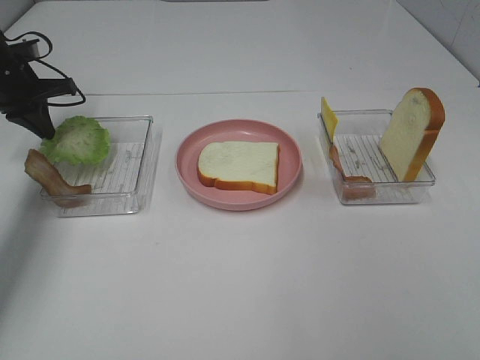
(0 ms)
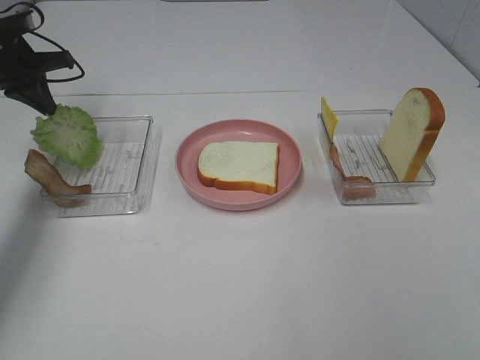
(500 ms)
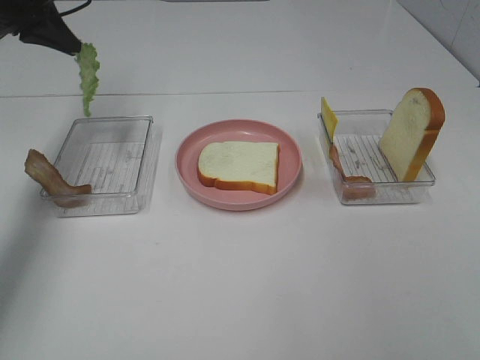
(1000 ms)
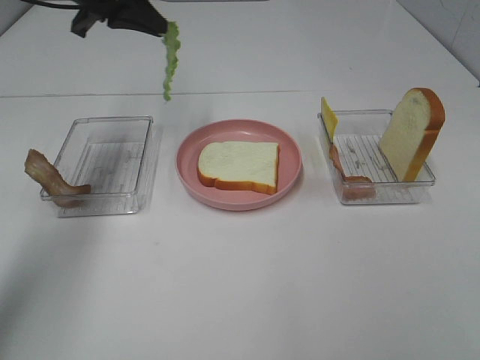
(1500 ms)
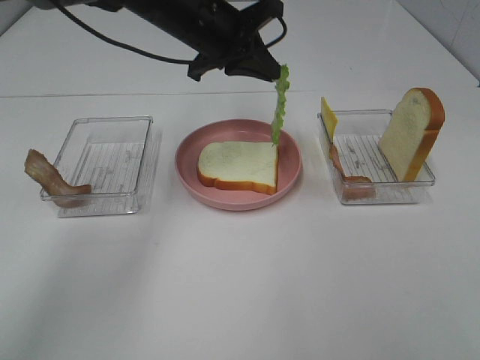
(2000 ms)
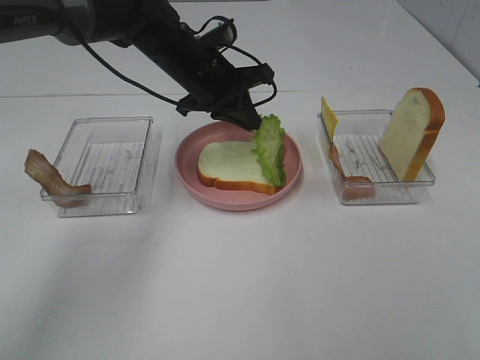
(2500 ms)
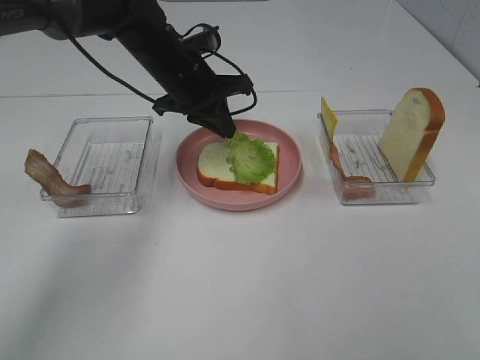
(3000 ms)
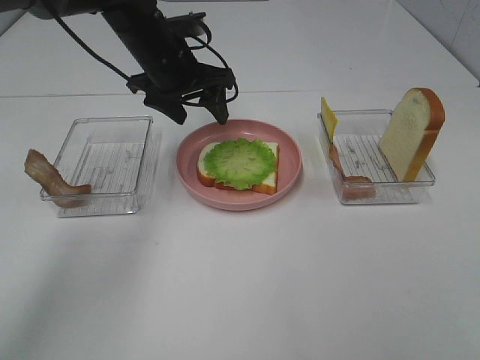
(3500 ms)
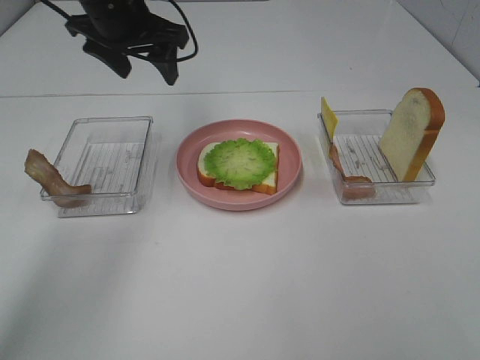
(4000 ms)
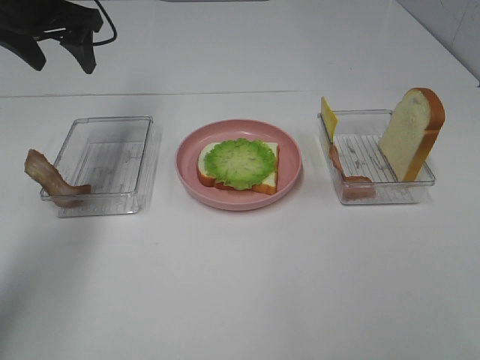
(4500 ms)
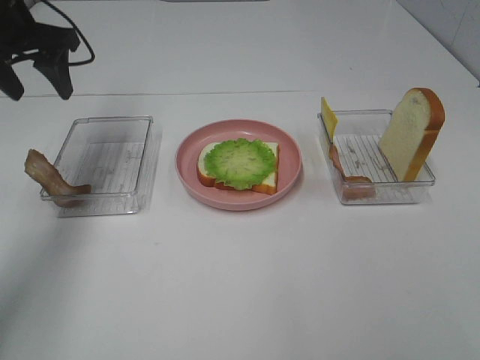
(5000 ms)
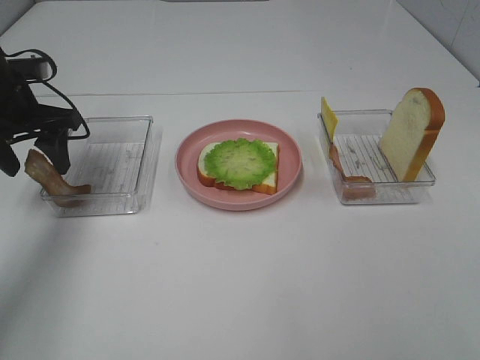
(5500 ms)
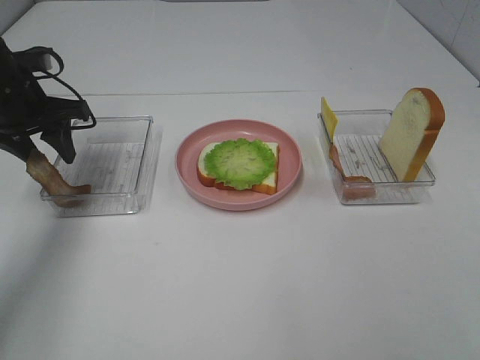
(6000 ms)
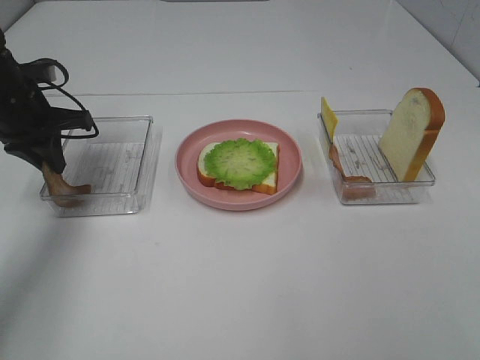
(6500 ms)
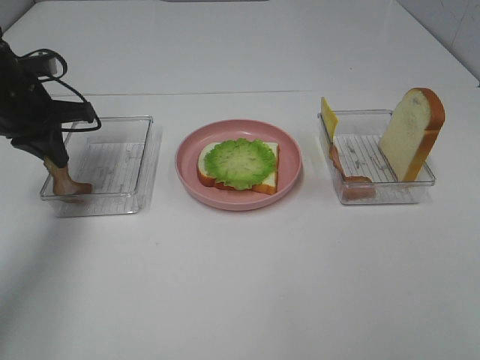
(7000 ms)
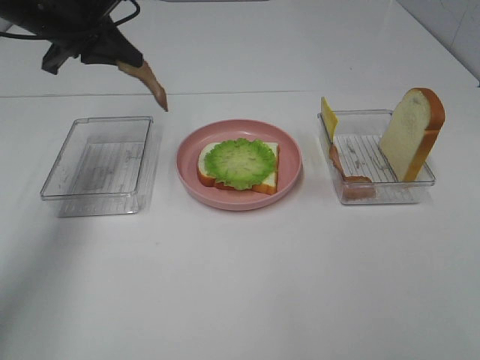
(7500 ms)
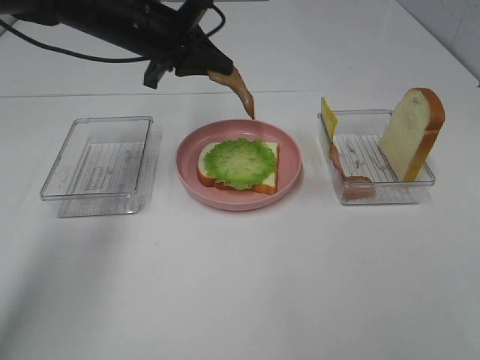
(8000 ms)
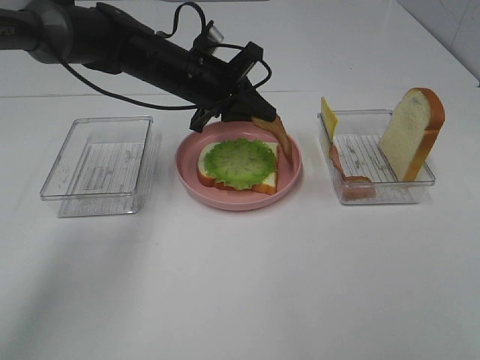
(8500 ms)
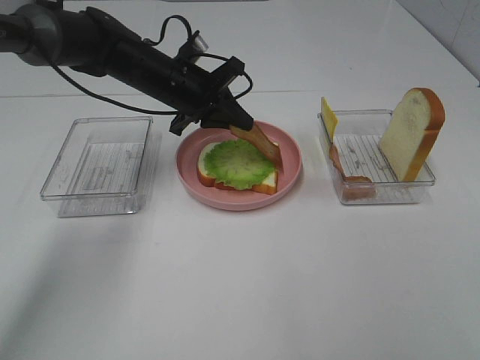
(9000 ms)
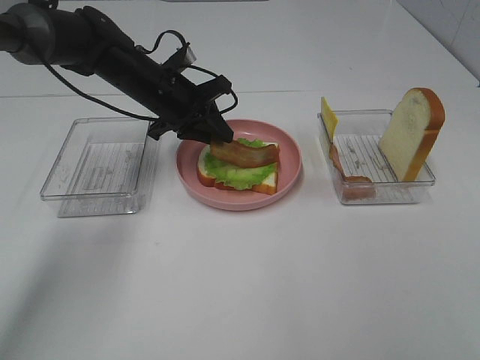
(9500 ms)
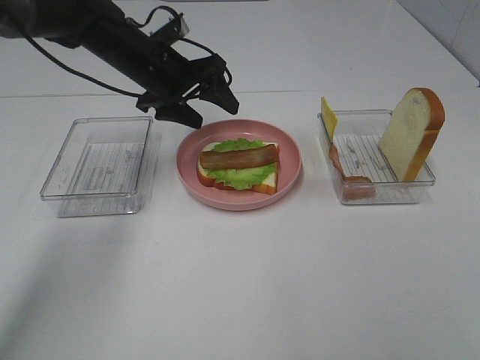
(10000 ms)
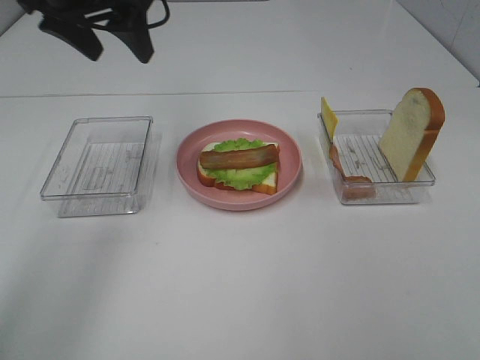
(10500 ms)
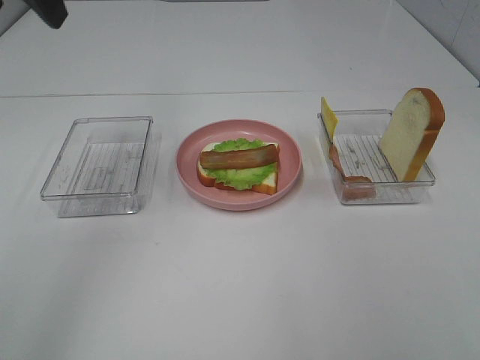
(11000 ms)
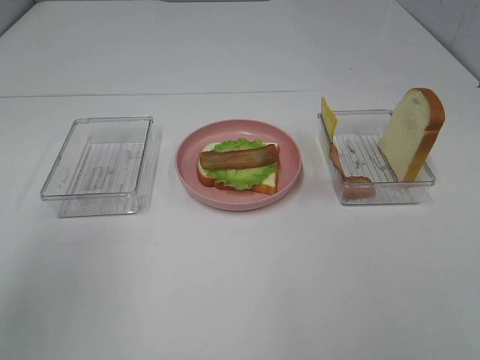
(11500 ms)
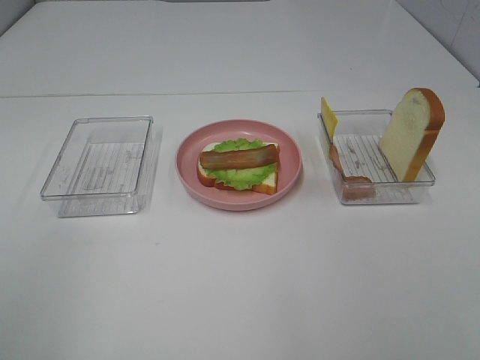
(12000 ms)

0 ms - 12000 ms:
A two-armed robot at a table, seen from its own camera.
Task of the whole recording: Make sandwiches.
Step, 500 ms - 3000 ms: Left hand:place the lettuce slice on the bread slice.
Step, 3500 ms - 6500 ms: Left hand:grab the bacon.
Step, 7000 ms - 10000 ms: Left hand:place bacon on lettuce slice.
0 ms - 2000 ms: The left gripper shifts about 30 cm to the right.
2000 ms - 4000 ms: The left gripper travels to the left by about 10 cm, and opens.
4000 ms - 6000 ms: The left gripper is displaced to the left and downward by approximately 15 cm.
6000 ms - 8000 ms: The left gripper travels to the right by about 15 cm, and closes its fingers.
8000 ms - 10000 ms: The left gripper opens its fingers.
10000 ms - 12000 ms: The left gripper moves backward and to the left, roughly 40 cm.

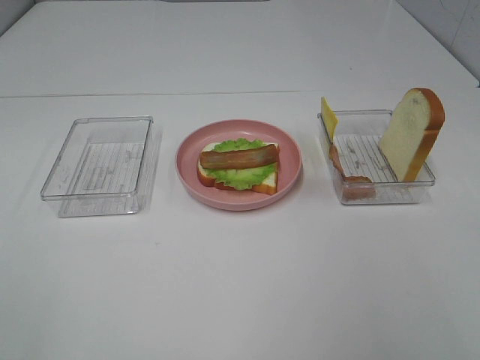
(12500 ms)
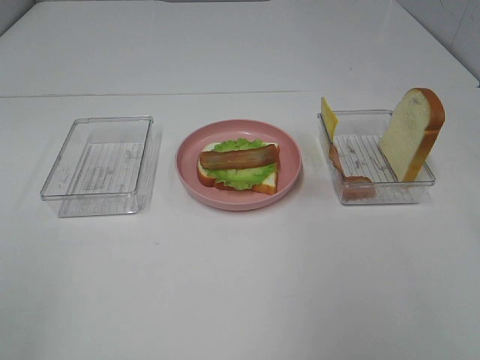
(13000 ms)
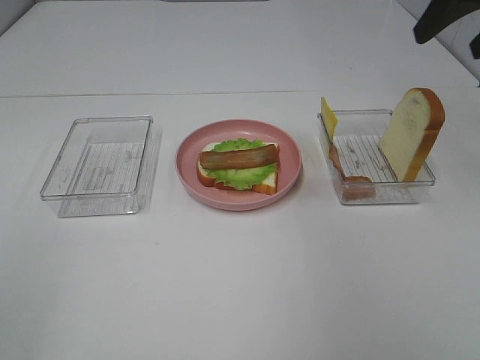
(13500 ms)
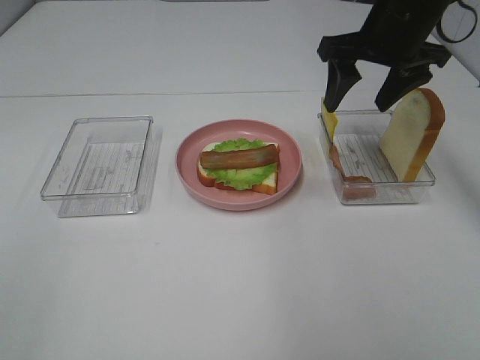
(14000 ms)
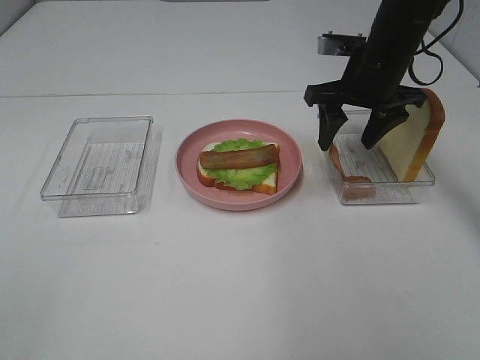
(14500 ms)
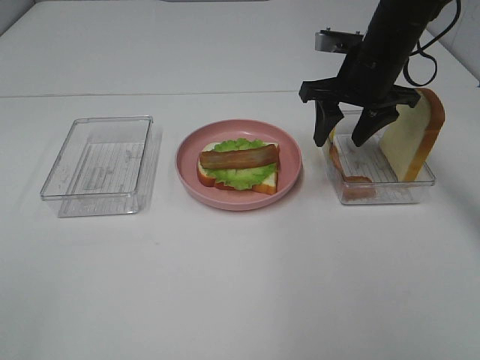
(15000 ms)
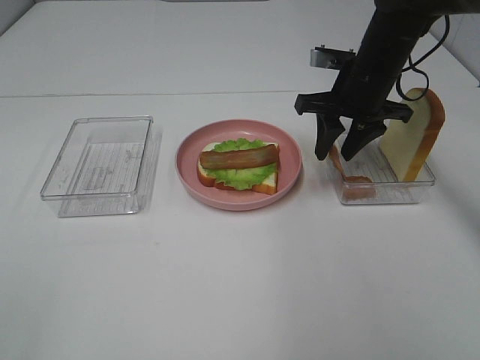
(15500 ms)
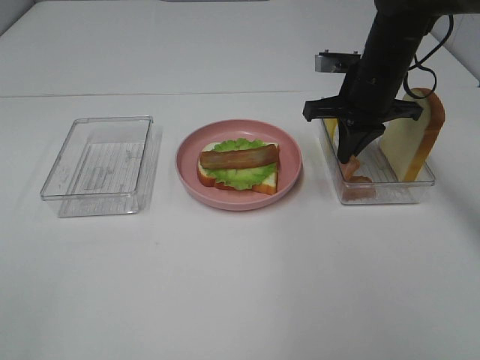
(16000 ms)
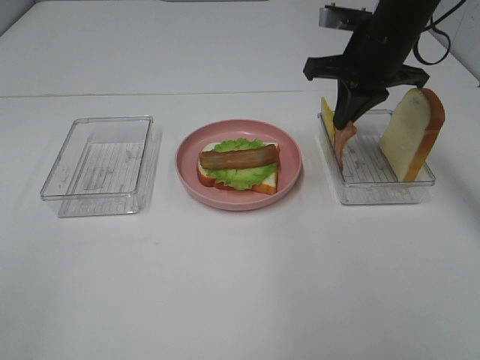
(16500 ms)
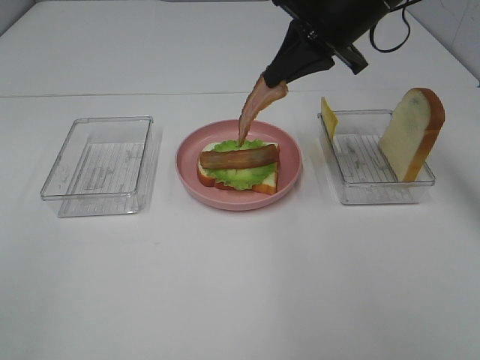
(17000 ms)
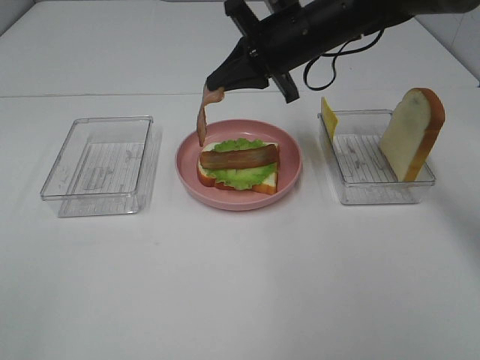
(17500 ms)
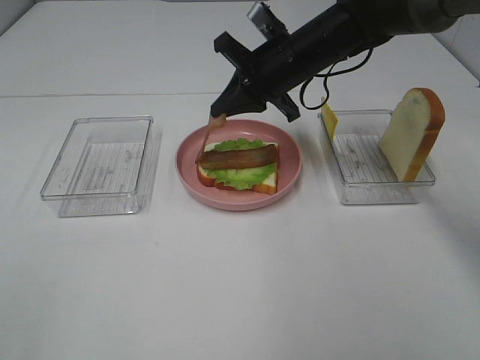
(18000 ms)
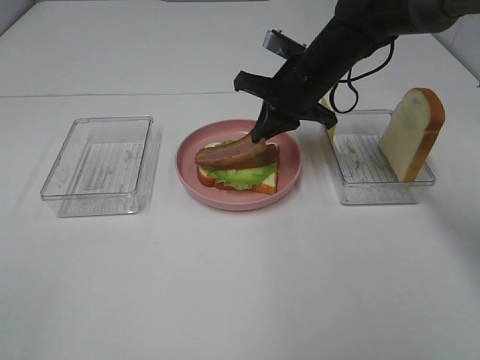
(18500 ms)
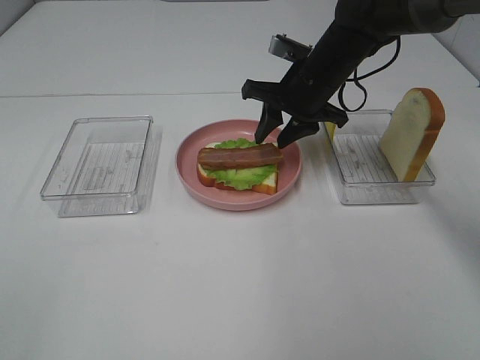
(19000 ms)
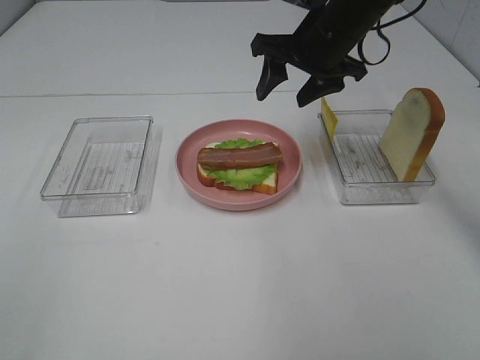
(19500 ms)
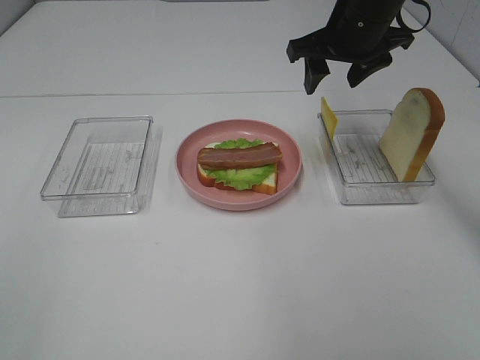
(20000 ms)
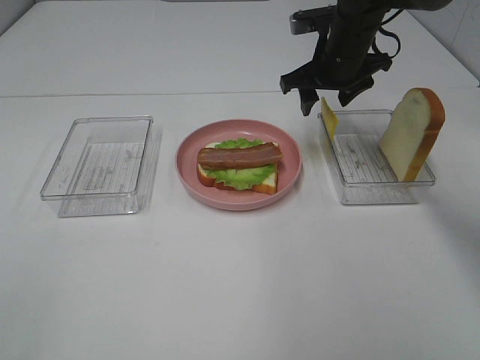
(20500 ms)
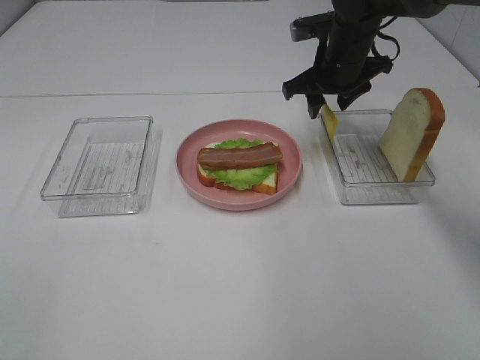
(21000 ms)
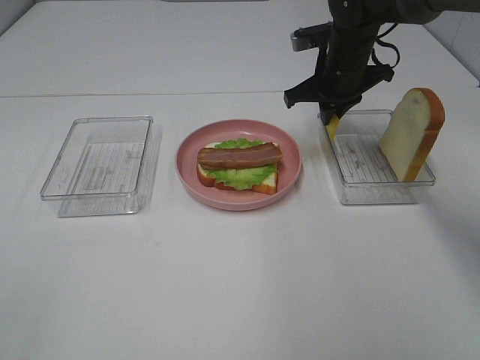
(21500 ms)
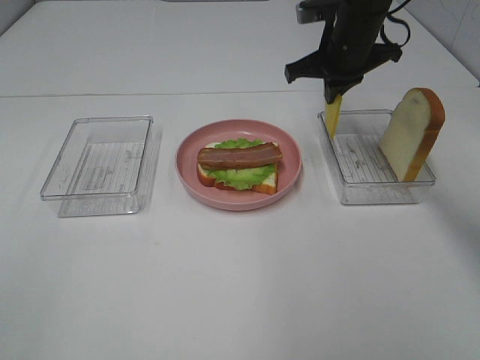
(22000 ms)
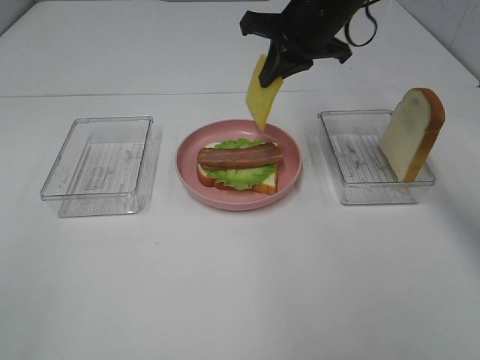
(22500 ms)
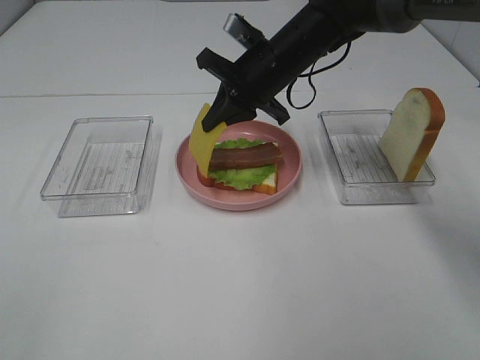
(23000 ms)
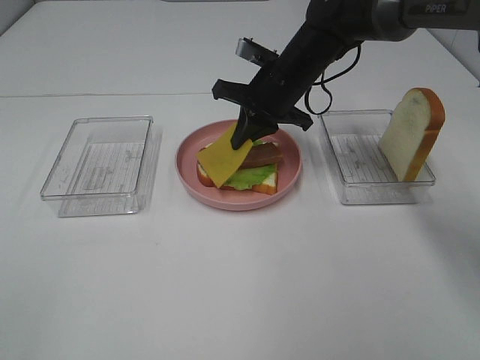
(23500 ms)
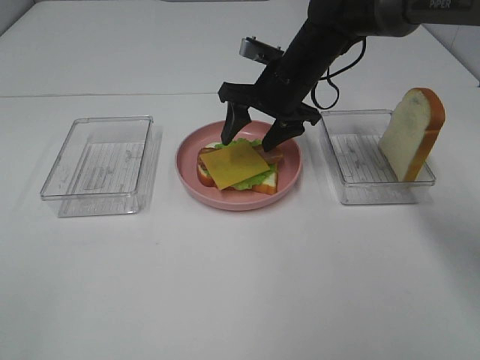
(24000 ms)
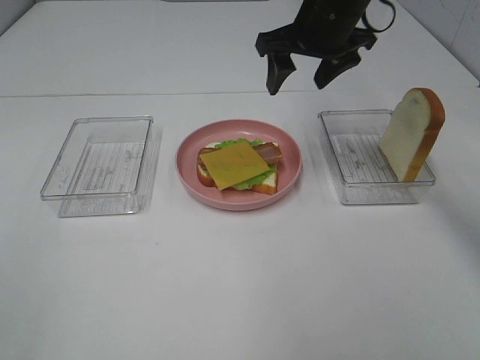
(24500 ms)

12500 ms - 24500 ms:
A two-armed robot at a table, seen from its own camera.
Task of the whole recording: Make sandwiches.
Step, 12500 ms - 16000 ms: Right hand:grab the bacon.
Step, 16500 ms - 19500 ms: Right hand:place bacon on bacon.
Step, 20000 ms - 21500 ms: Right hand:grab the cheese slice.
Step, 22000 ms - 24000 ms: Right hand:place the cheese slice on top of the bacon.
12500 ms - 14500 ms: The right gripper heads forward, covering some 35 cm.
14500 ms - 16500 ms: The right gripper closes.
16500 ms - 18500 ms: The right gripper heads downward and to the left, covering approximately 10 cm.
18500 ms - 20500 ms: The right gripper moves about 10 cm upward and comes back, and opens its fingers.
20500 ms - 22500 ms: The right gripper travels upward by some 5 cm, and closes.
22500 ms - 24500 ms: The right gripper reaches some 10 cm downward, then returns, and opens its fingers.

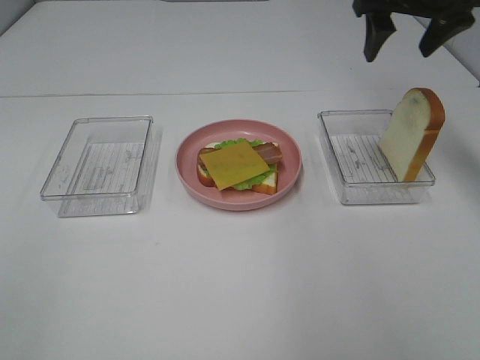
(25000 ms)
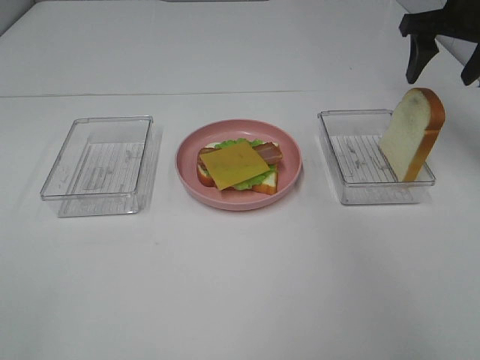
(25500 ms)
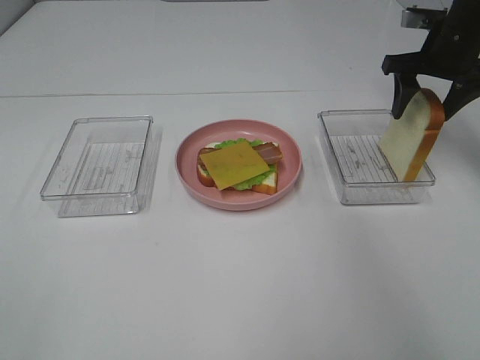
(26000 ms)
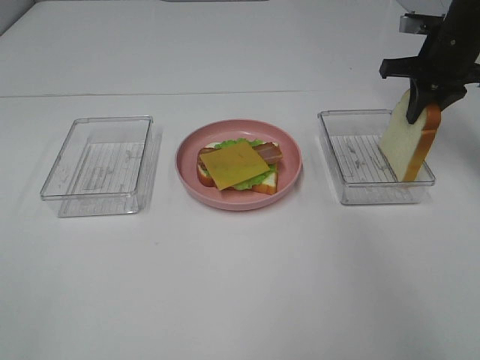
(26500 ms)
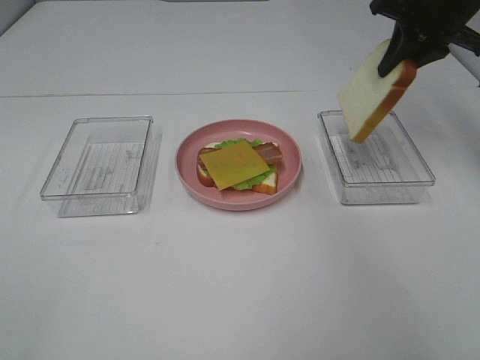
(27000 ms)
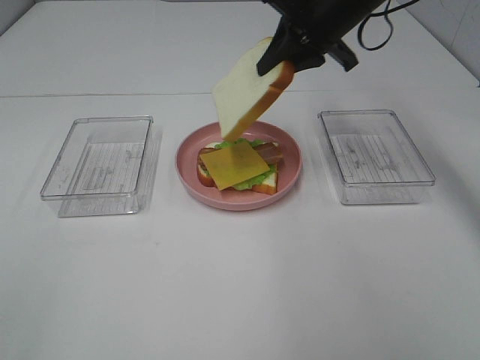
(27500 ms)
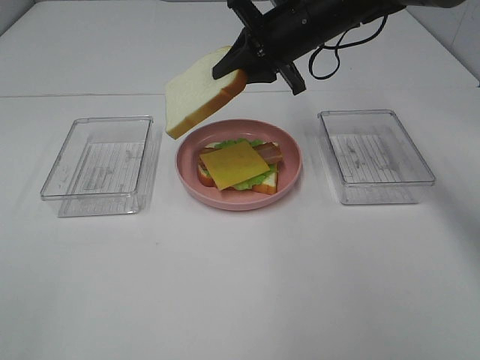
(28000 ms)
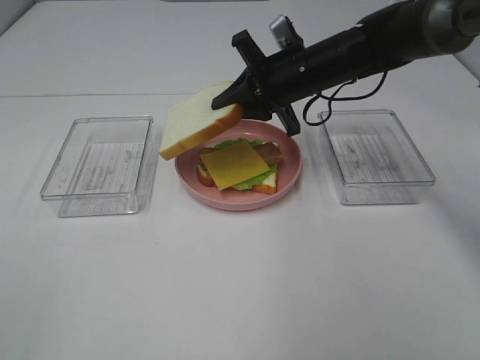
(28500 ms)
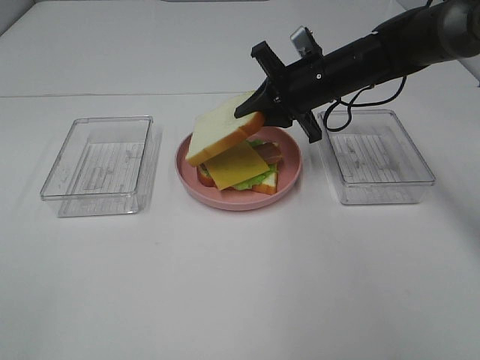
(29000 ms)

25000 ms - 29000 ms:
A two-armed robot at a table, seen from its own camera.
Task of the whole recording: Make sandwiches.
25000 ms - 27000 ms: The right gripper reaches roughly 10 cm downward, then returns, and closes.
27000 ms - 29000 ms: The right gripper travels to the left and downward by some 15 cm.
